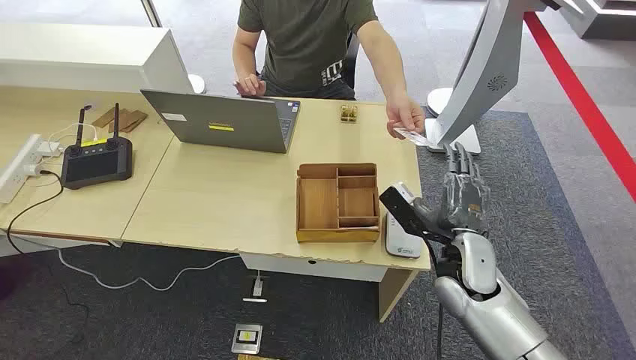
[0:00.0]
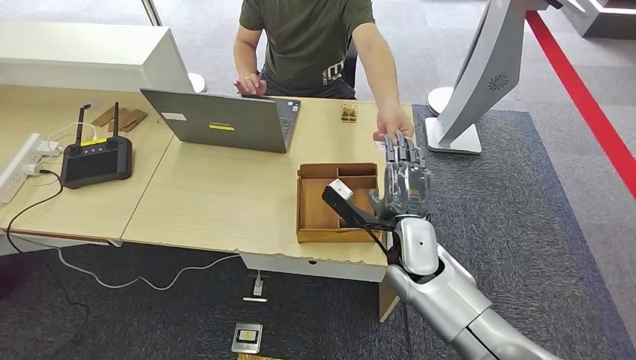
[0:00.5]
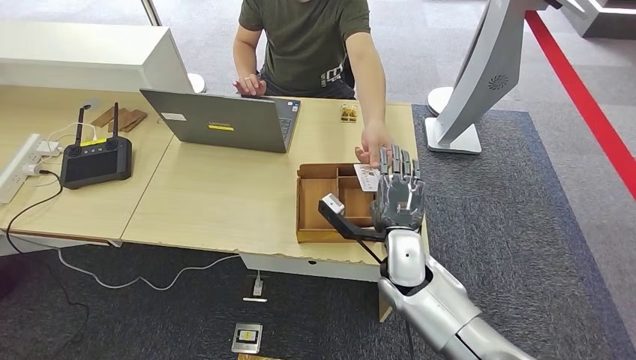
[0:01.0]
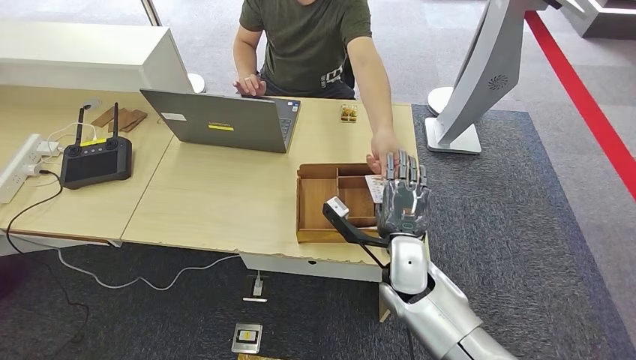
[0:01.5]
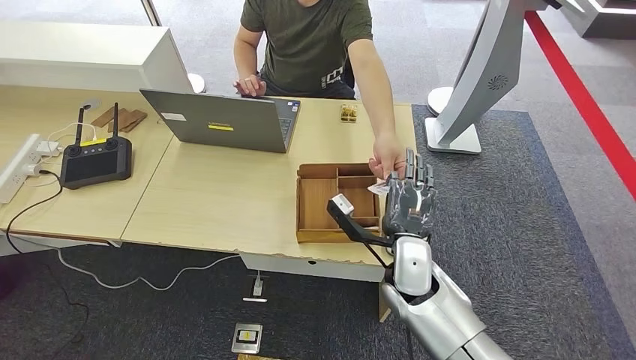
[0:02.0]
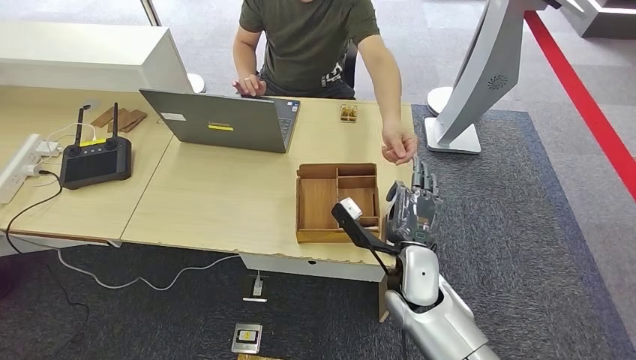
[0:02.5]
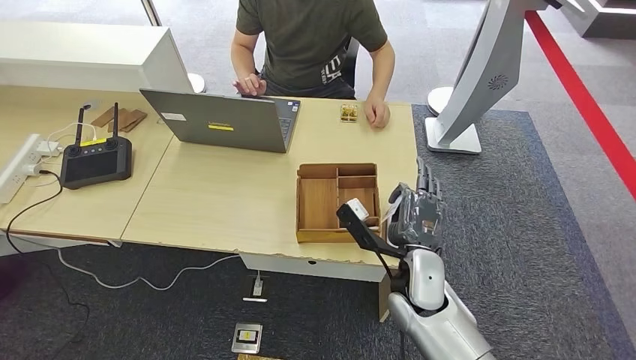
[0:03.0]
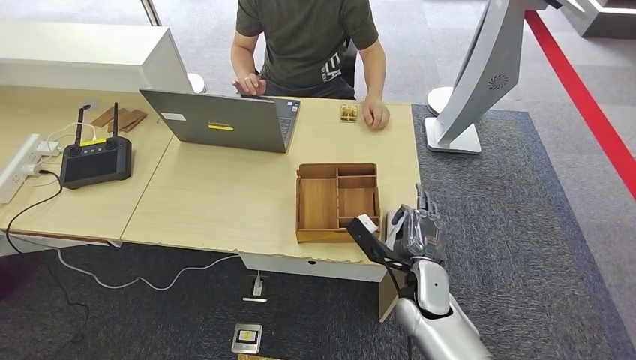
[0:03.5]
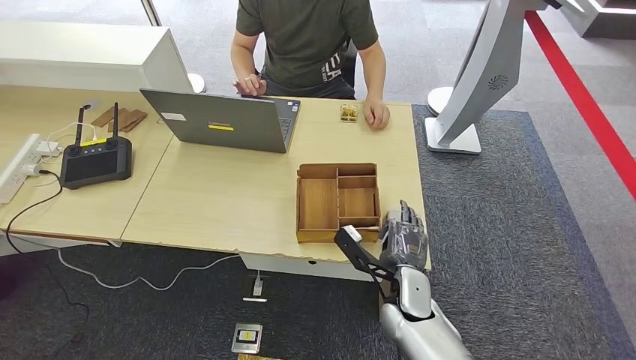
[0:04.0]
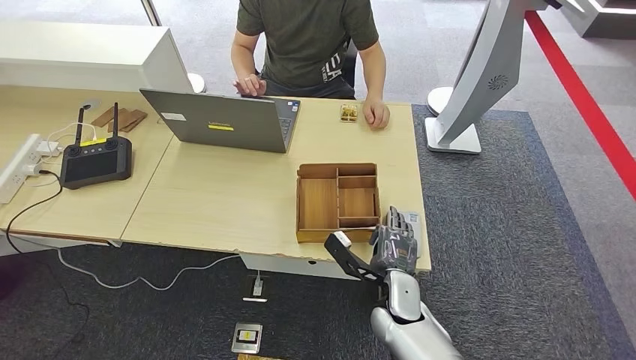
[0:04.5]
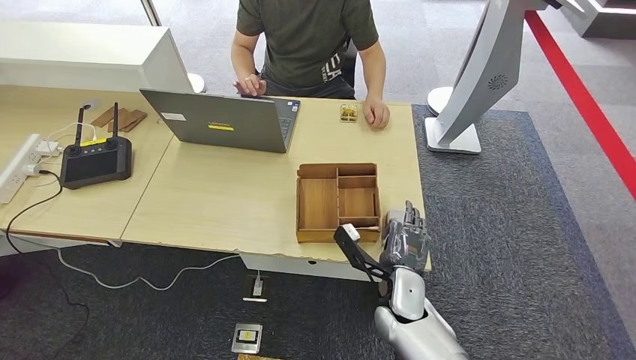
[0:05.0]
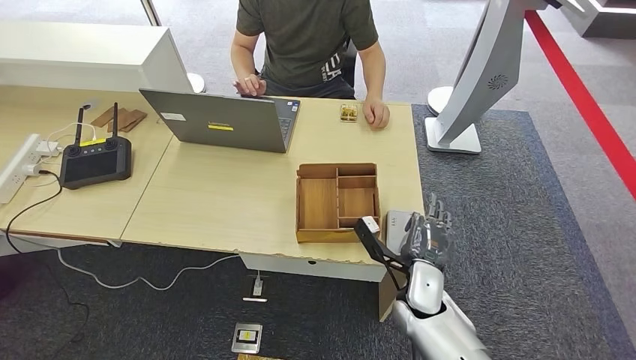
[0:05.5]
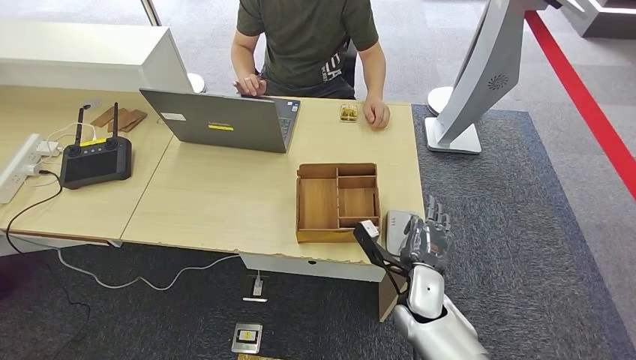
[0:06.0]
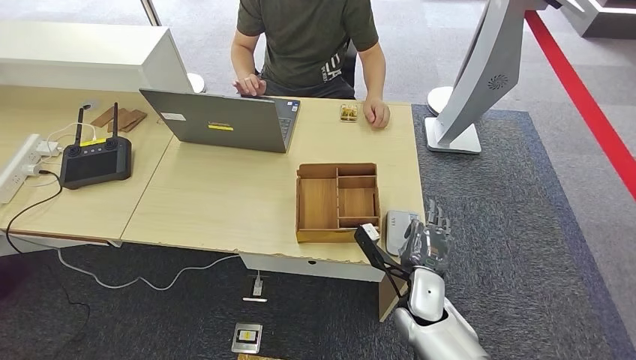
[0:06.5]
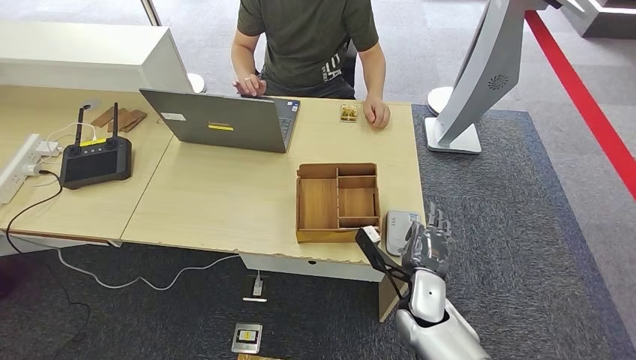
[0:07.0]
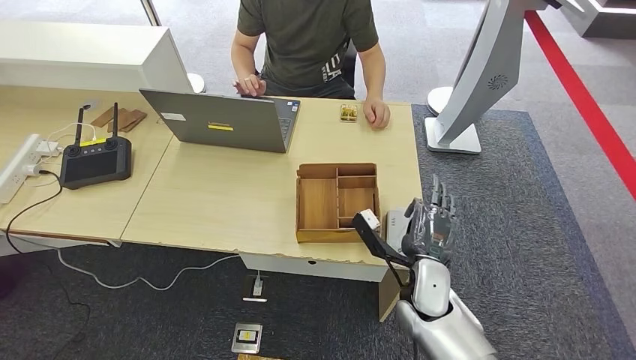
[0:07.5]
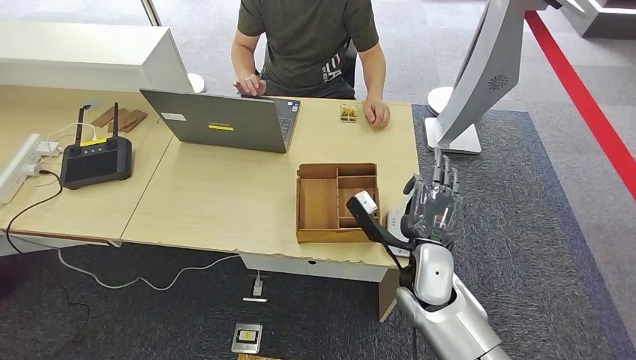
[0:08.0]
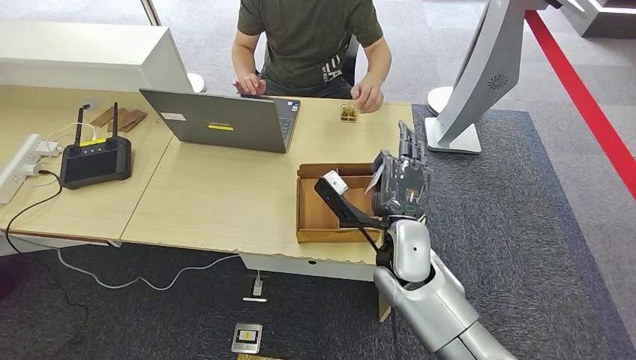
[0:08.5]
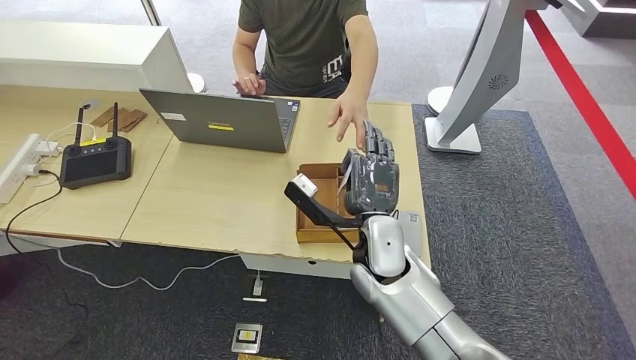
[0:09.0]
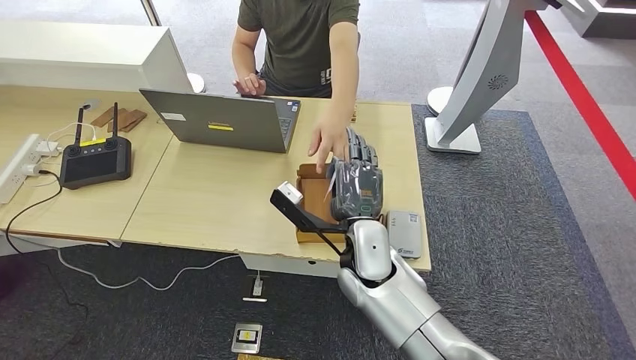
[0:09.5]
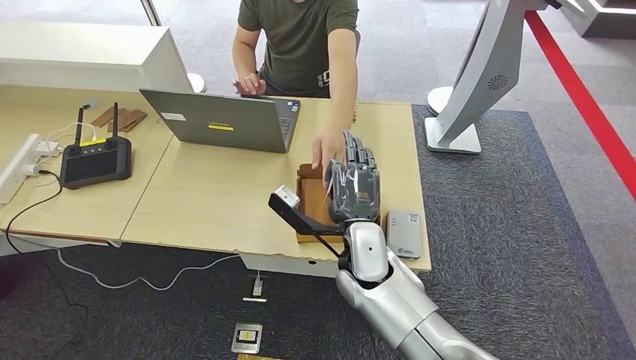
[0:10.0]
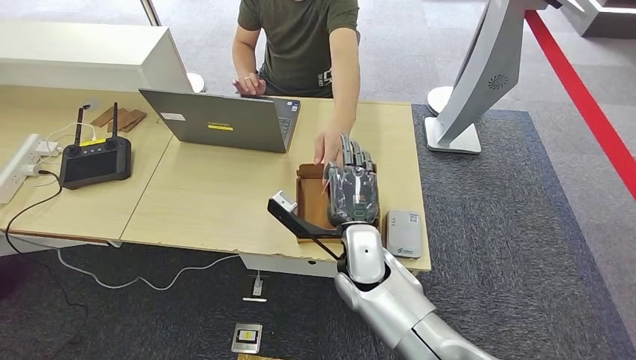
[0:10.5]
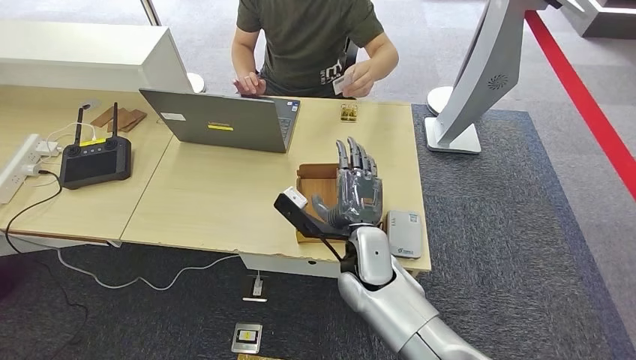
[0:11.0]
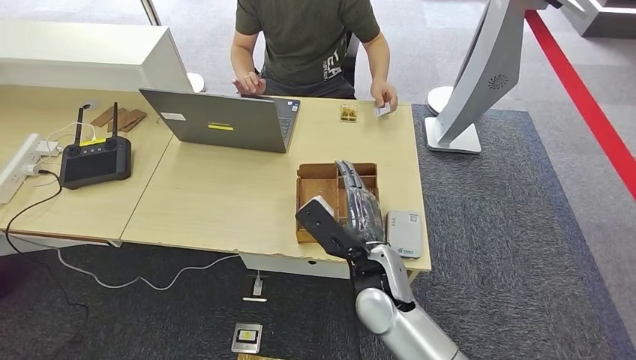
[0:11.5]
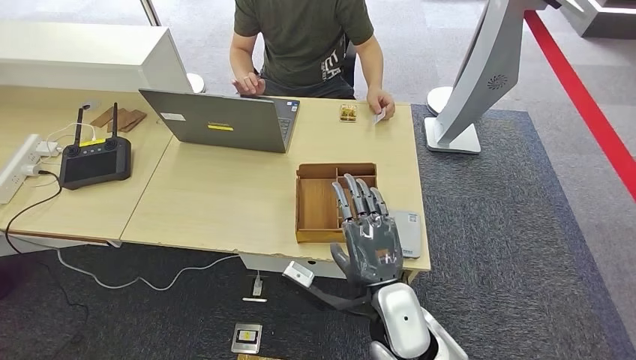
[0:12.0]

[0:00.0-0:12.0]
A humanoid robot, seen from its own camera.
Step, 0:00.0 to 0:02.5: Take the ID card from the person's hand.
Step, 0:03.0 to 0:07.5: Place the ID card on the card reader.
Step, 0:08.0 to 0:11.5: Hand the ID card to the person.
0:02.0 to 0:04.0: The right hand shifts some 10 cm downward.
0:04.0 to 0:06.0: The hands move only a little.
0:06.0 to 0:08.0: The right hand goes some 10 cm upward.
0:08.0 to 0:10.0: The right hand heads to the left, covering approximately 10 cm.
0:10.0 to 0:12.0: The right hand heads backward, covering approximately 10 cm.

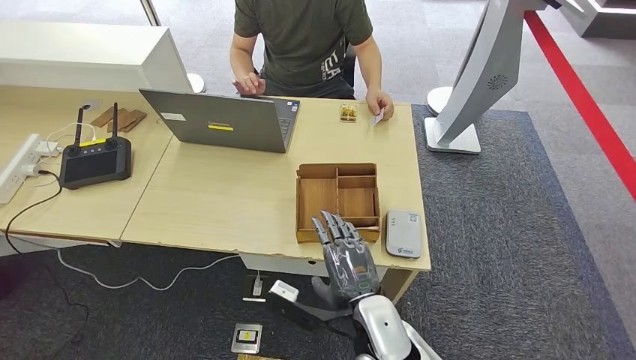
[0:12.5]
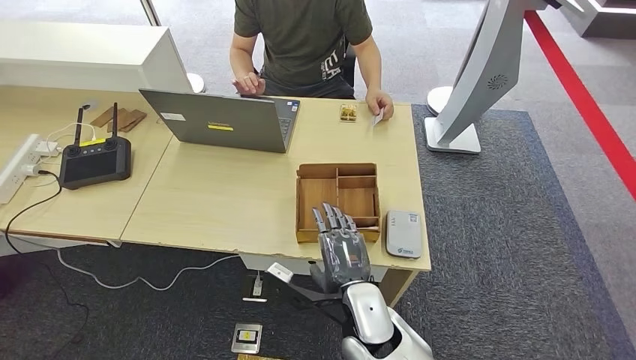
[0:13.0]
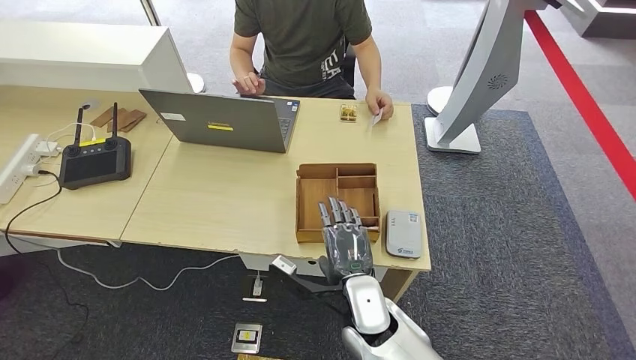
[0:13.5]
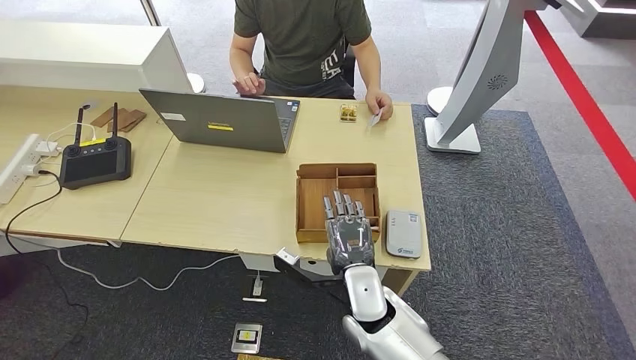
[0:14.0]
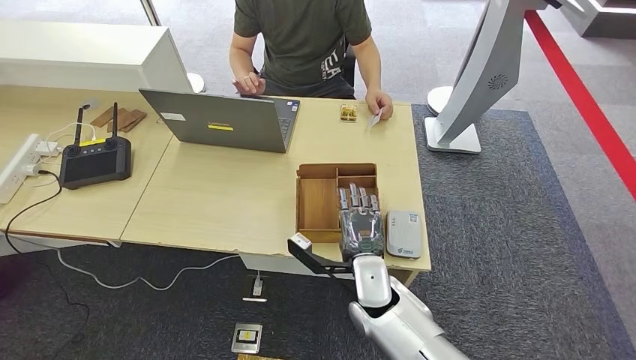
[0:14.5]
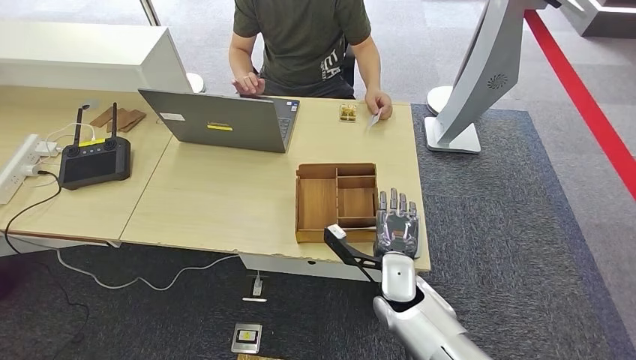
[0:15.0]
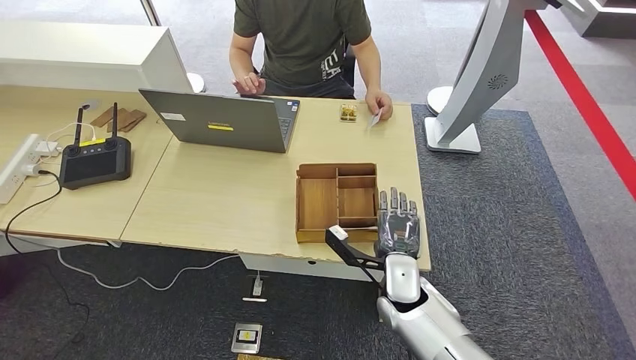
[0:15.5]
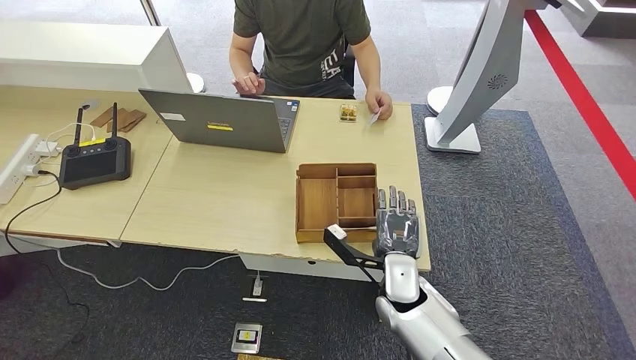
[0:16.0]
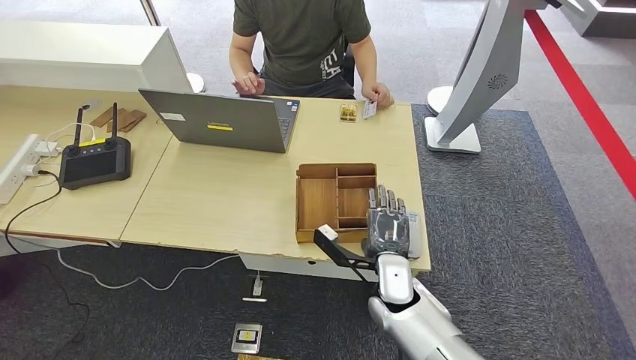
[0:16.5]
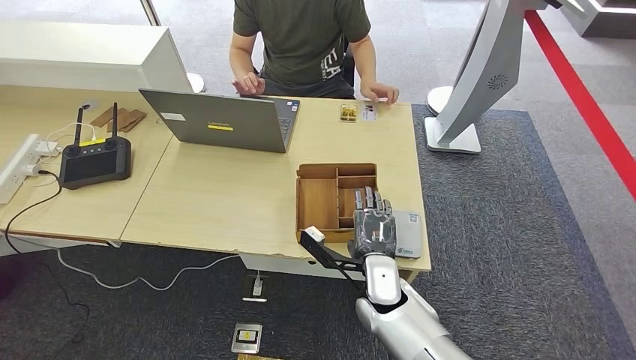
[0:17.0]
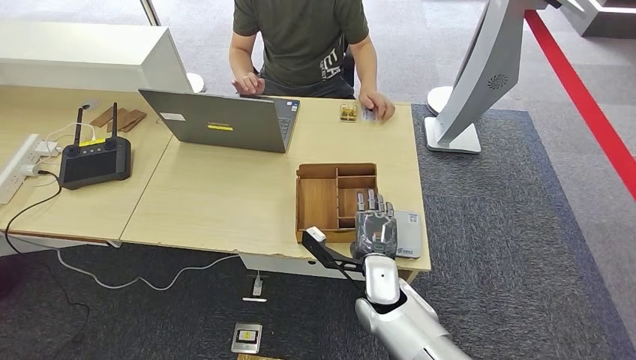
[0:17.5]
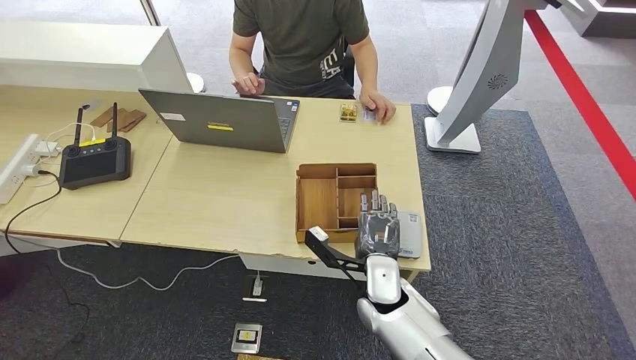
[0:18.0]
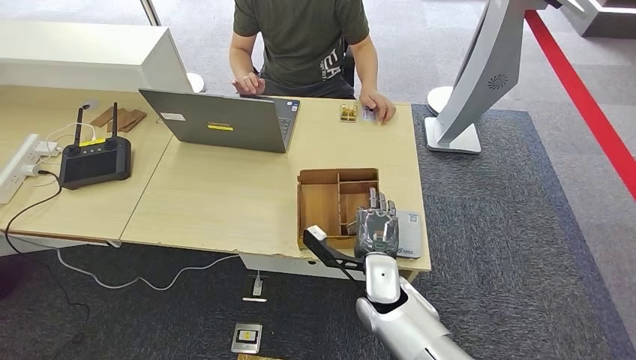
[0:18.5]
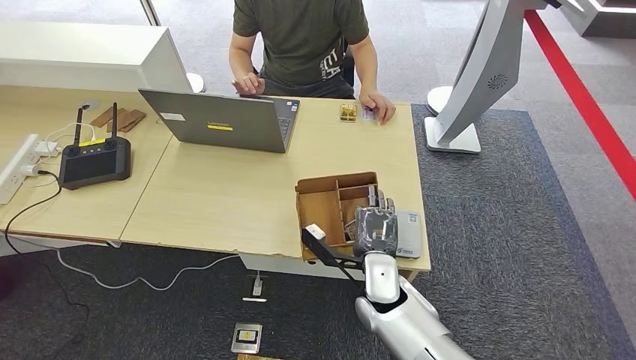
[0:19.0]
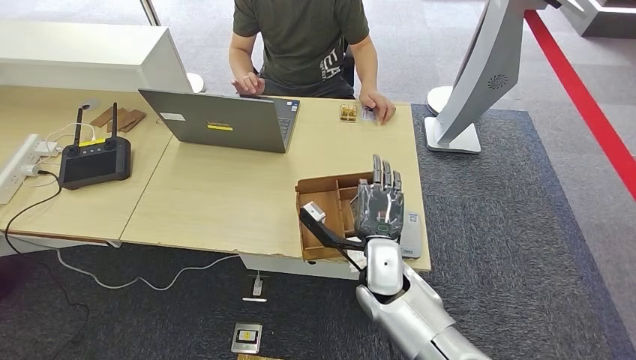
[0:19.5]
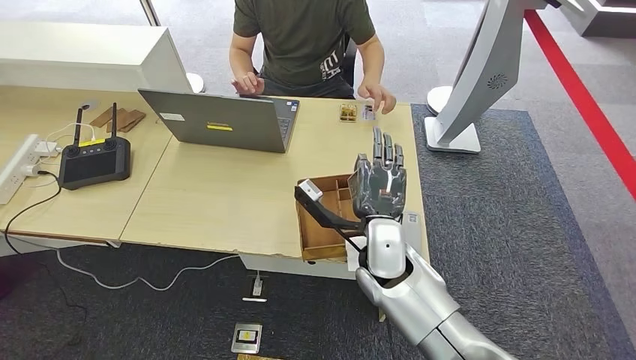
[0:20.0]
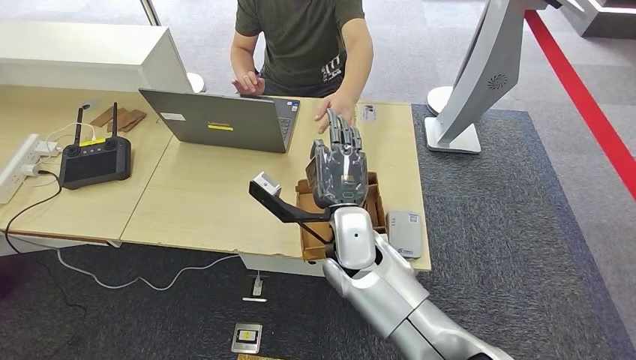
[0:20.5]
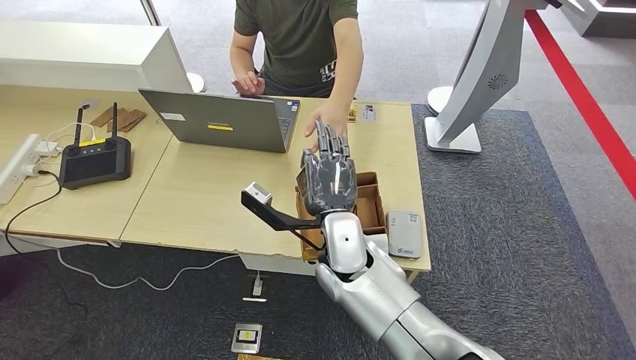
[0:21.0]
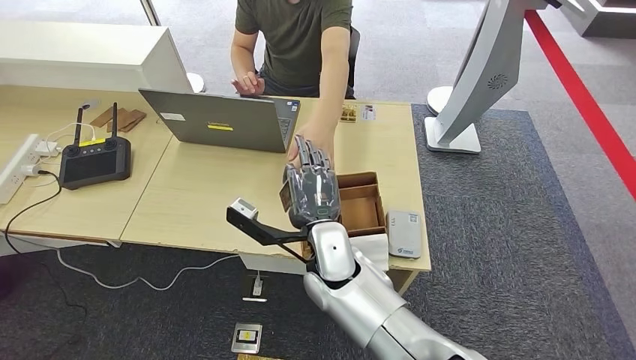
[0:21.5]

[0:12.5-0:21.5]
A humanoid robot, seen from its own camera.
Step, 0:17.5 to 0:20.5: Pick up the room key from the key card box.
0:12.5 to 0:14.5: The right hand goes some 10 cm forward.
0:14.5 to 0:19.5: There are only small adjustments of the hands.
0:19.5 to 0:21.5: The right hand heads to the left, covering roughly 10 cm.
